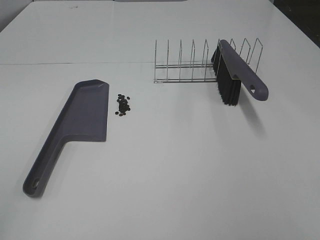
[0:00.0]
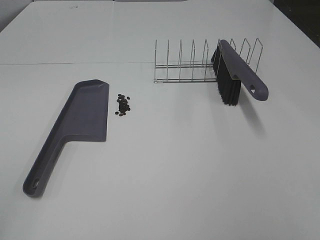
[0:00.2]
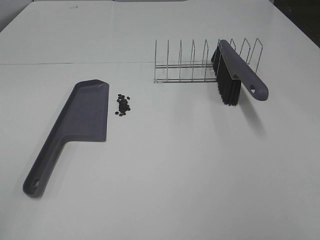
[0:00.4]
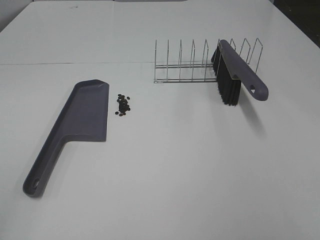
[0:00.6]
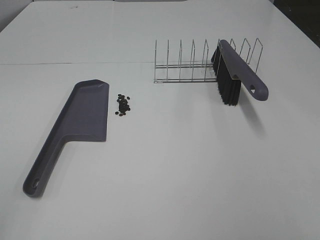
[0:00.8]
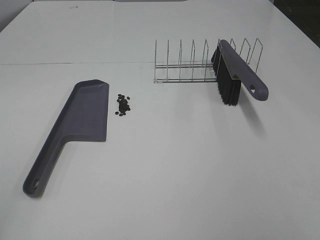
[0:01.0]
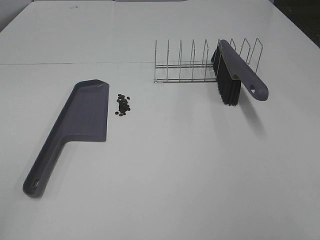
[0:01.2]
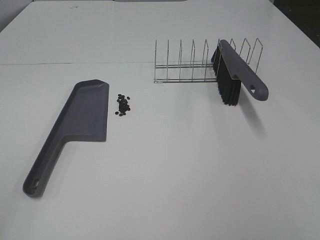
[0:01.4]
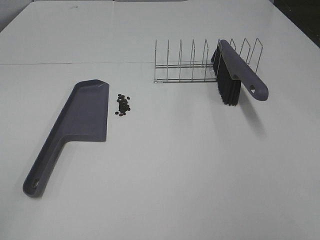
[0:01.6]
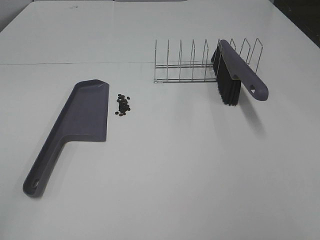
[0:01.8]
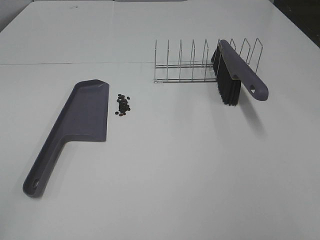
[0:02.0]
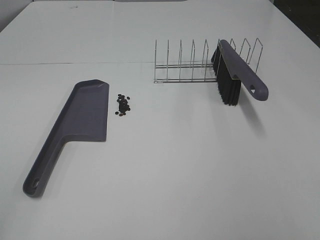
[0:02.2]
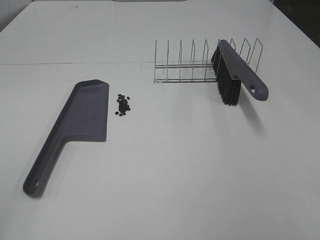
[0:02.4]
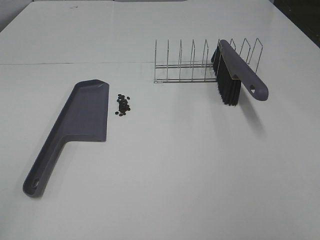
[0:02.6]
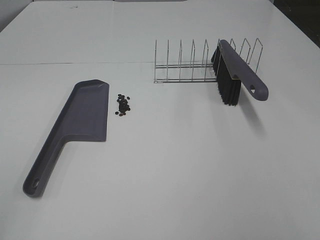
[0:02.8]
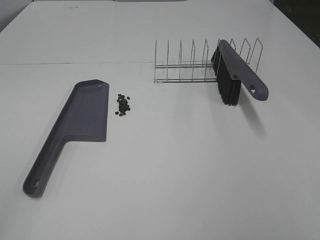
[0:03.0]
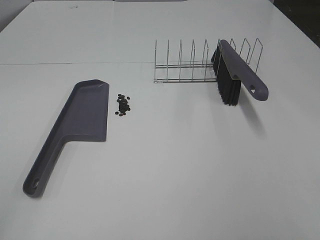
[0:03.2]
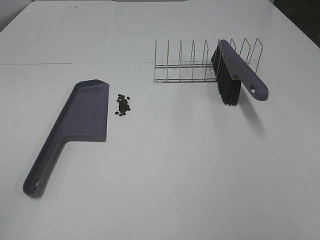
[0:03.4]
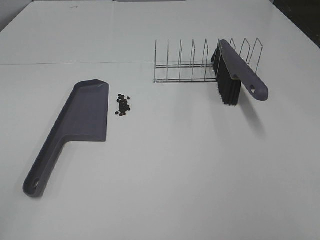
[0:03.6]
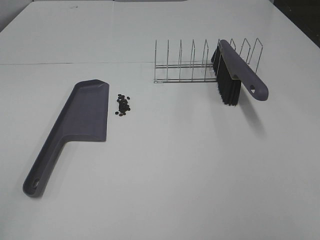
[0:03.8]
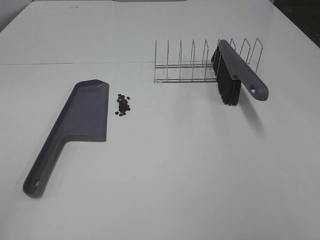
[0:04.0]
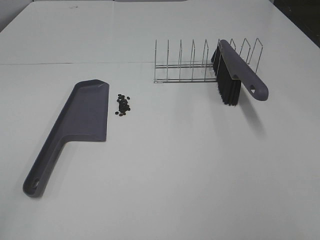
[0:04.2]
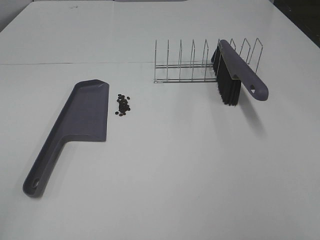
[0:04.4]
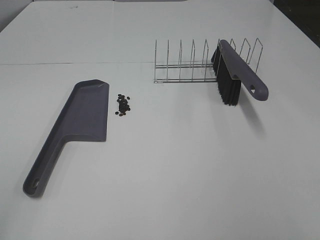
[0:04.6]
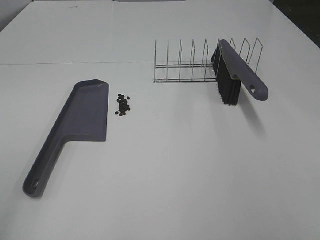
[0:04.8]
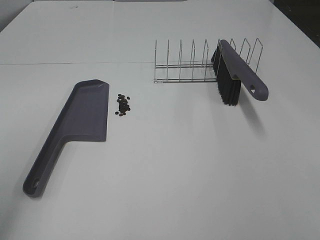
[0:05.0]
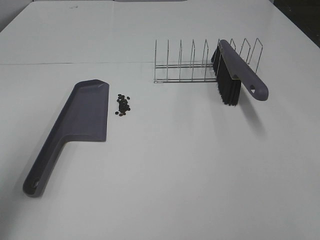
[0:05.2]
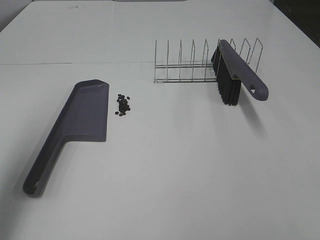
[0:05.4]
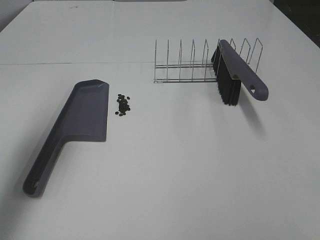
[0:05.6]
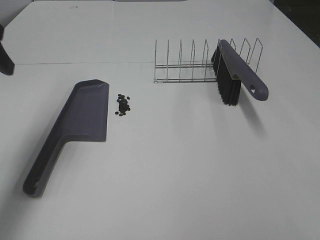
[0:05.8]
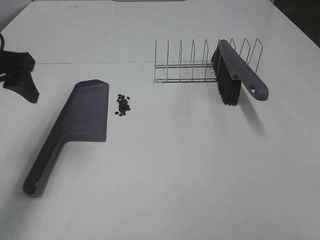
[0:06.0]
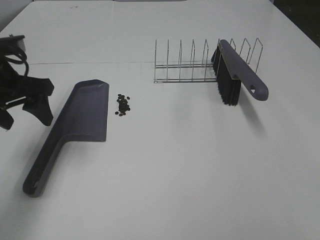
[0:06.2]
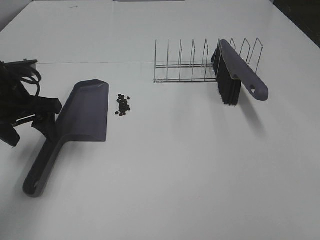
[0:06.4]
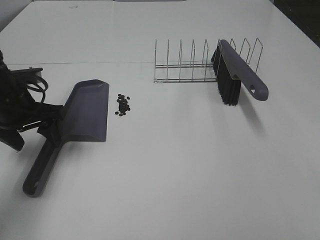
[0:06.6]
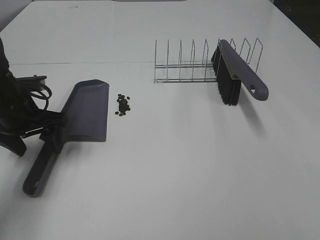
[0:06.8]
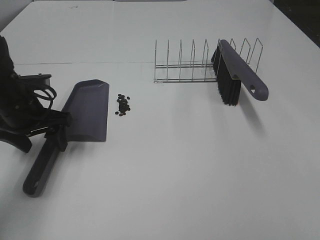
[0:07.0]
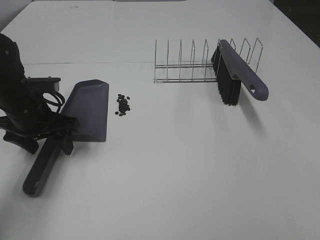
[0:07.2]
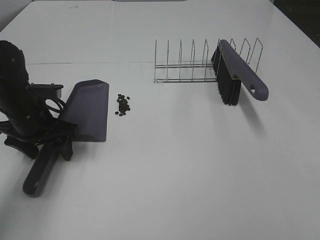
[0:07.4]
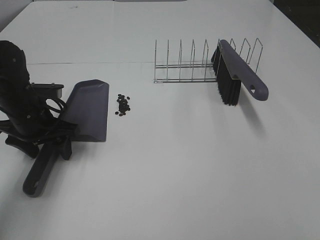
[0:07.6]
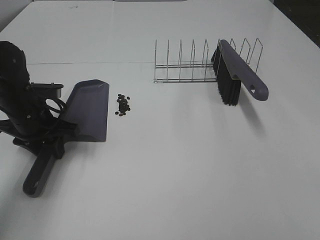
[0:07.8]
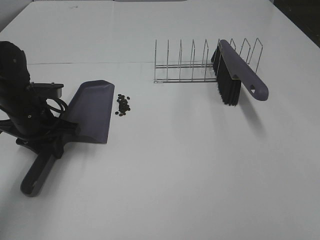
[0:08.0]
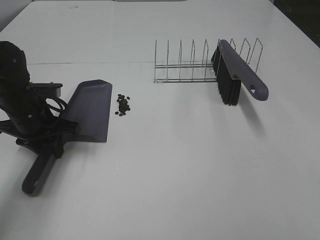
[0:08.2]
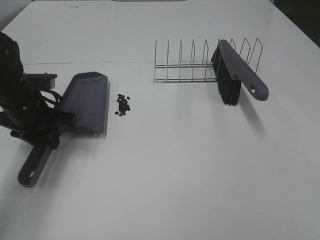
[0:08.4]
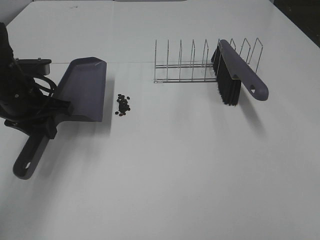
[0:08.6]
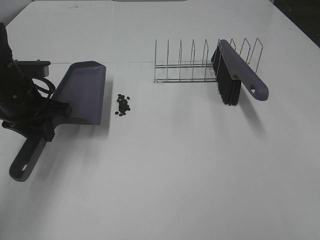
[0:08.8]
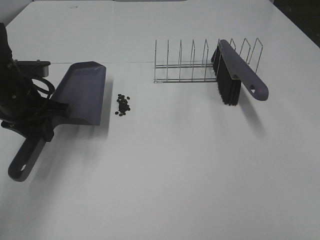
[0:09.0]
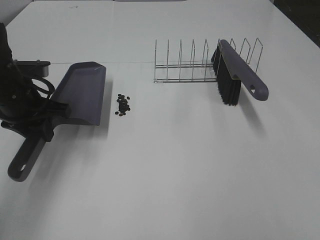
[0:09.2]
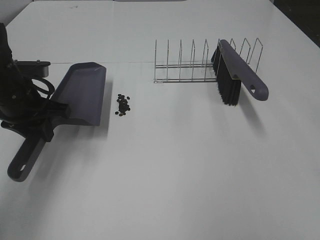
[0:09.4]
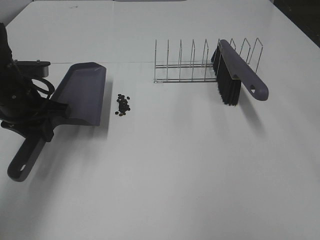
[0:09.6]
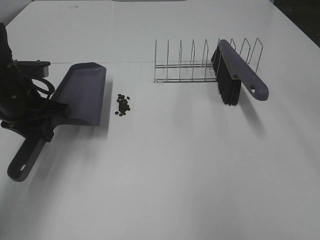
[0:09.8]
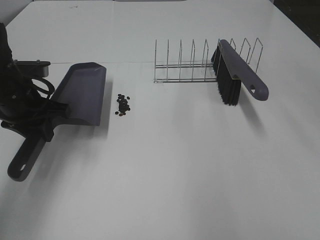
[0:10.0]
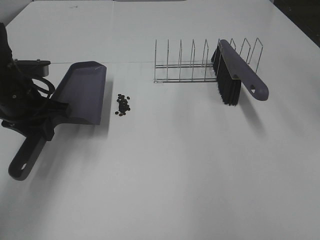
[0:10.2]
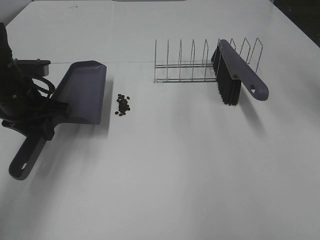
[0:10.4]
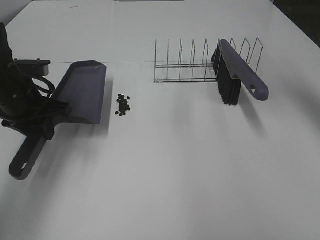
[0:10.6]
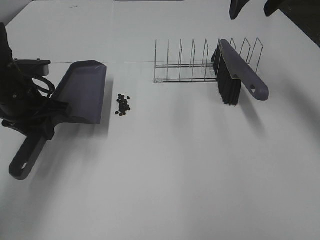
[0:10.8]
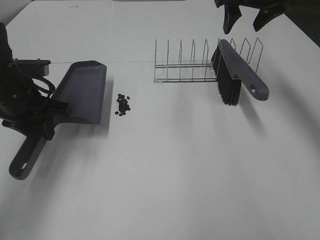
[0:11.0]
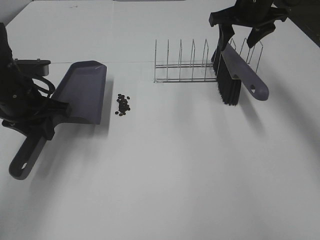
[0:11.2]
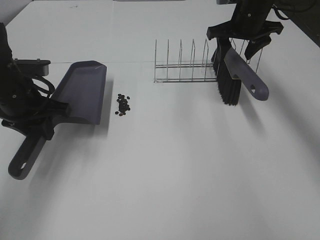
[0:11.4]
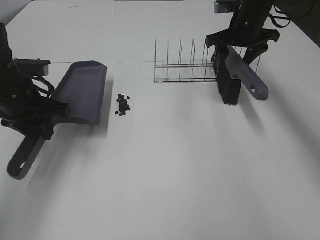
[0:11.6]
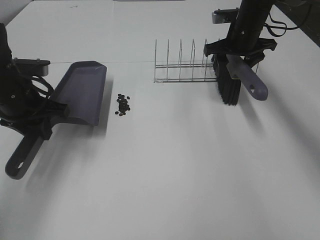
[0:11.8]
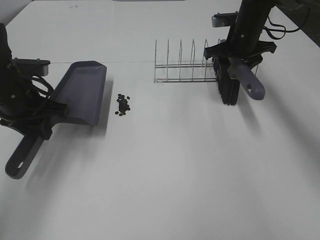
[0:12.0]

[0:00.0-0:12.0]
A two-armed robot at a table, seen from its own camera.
Task of the whole recording: Sweep Coffee Bean.
Step, 0:00.0 to 0:08.0: Left hand: grab the dustpan.
0:00.0 to 0:04.4: Both grippers stay put.
0:04.4 to 0:06.0: The left gripper goes some 30 cm forward.
0:06.0 to 0:07.6: The left gripper moves downward, approximately 15 cm.
0:07.6 to 0:09.0: The left gripper is displaced upward by about 5 cm, and closes.
0:10.4 to 0:12.0: The right gripper travels downward and forward by roughly 25 cm, and closes up.

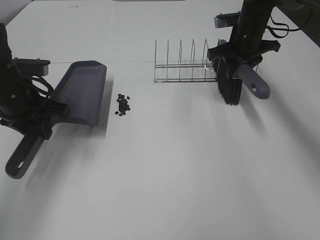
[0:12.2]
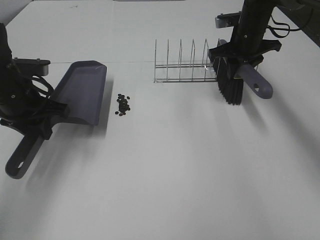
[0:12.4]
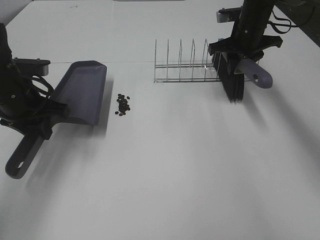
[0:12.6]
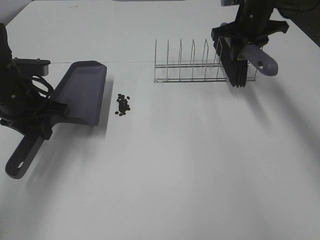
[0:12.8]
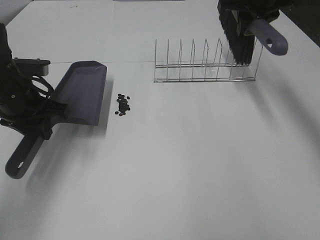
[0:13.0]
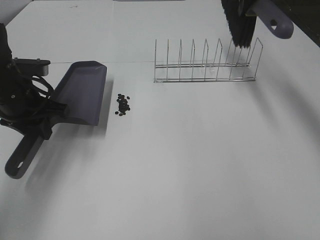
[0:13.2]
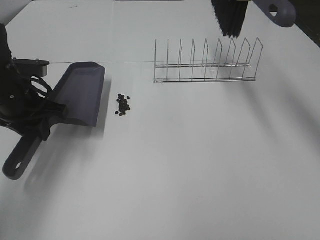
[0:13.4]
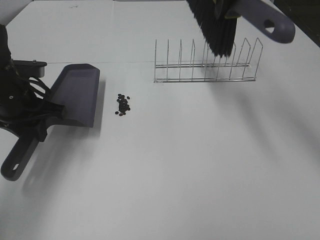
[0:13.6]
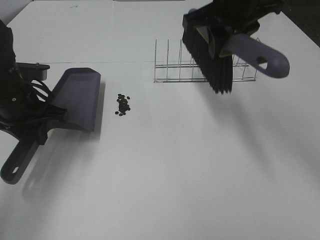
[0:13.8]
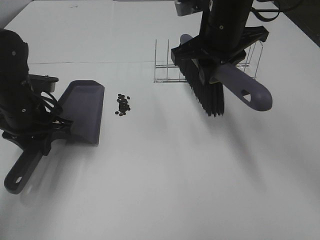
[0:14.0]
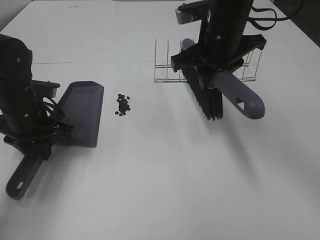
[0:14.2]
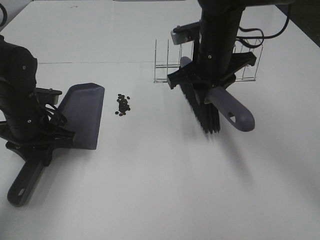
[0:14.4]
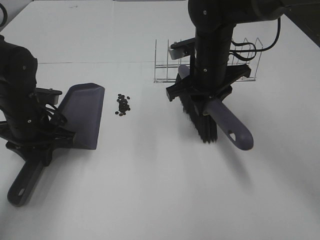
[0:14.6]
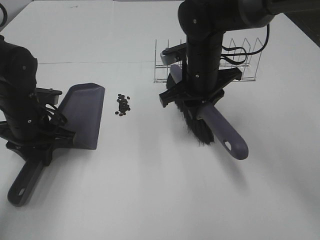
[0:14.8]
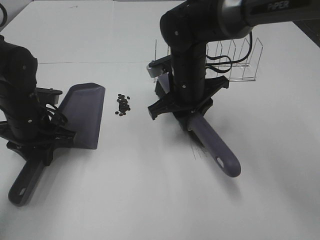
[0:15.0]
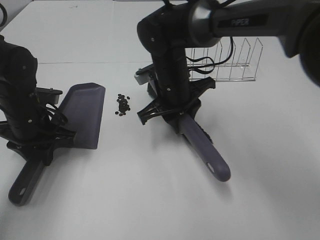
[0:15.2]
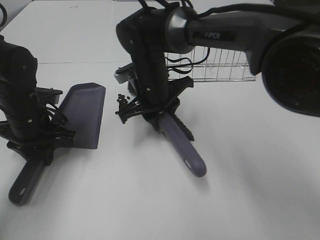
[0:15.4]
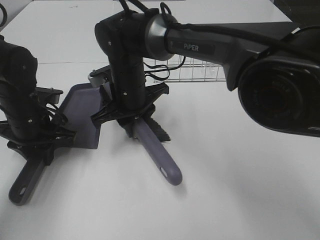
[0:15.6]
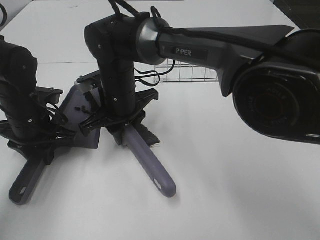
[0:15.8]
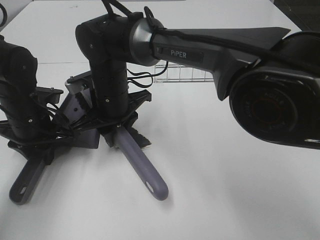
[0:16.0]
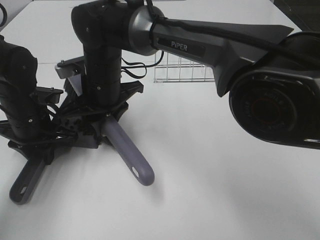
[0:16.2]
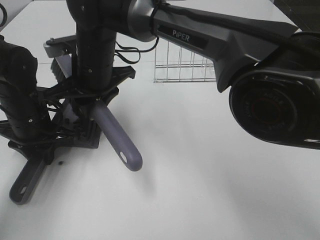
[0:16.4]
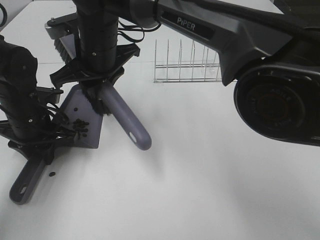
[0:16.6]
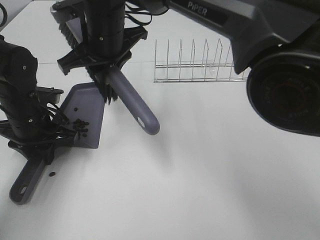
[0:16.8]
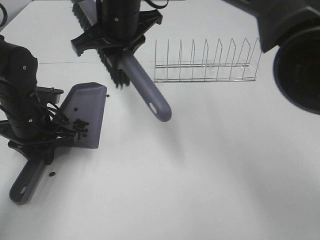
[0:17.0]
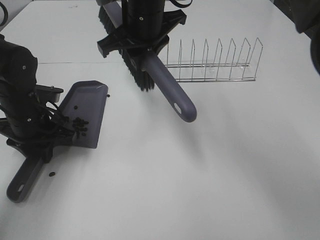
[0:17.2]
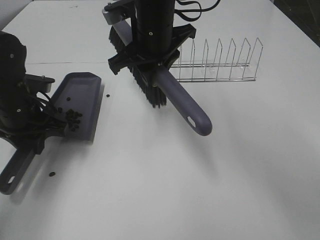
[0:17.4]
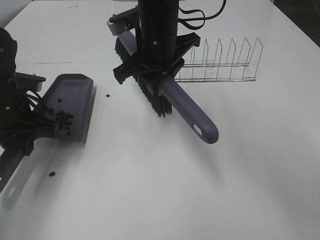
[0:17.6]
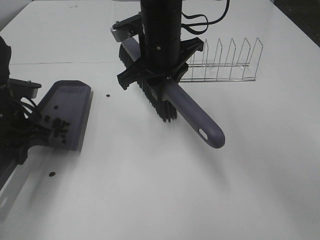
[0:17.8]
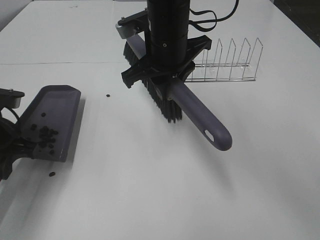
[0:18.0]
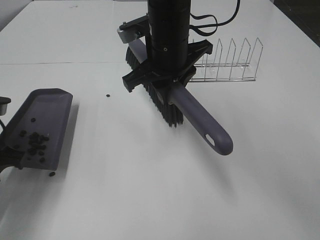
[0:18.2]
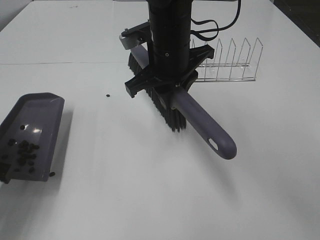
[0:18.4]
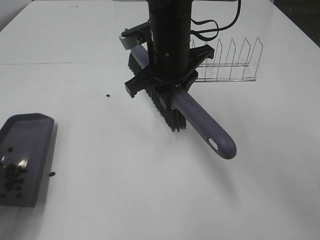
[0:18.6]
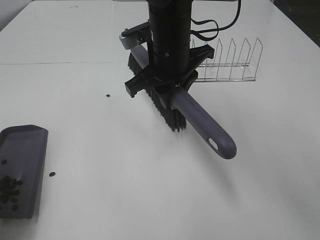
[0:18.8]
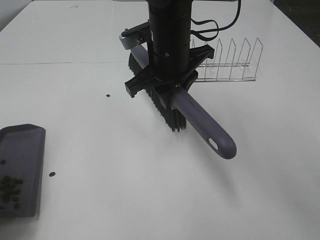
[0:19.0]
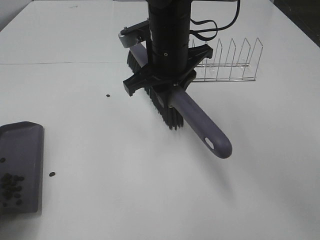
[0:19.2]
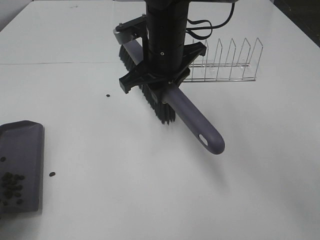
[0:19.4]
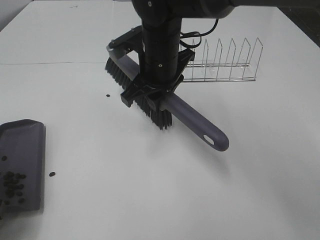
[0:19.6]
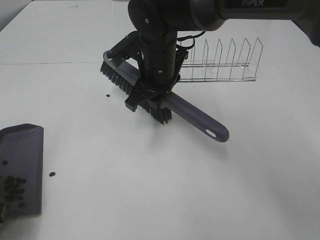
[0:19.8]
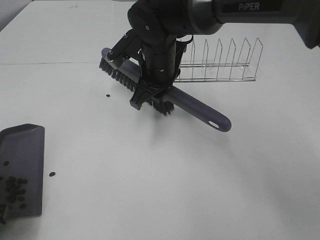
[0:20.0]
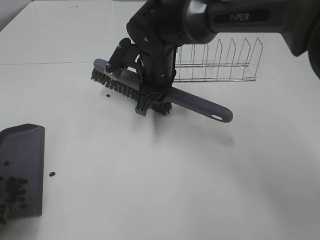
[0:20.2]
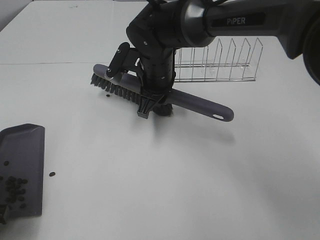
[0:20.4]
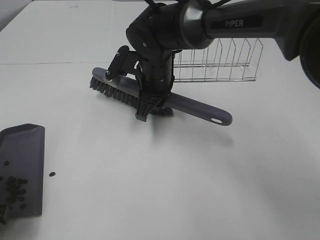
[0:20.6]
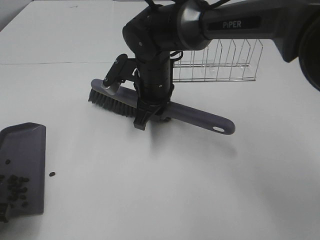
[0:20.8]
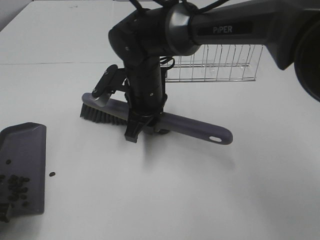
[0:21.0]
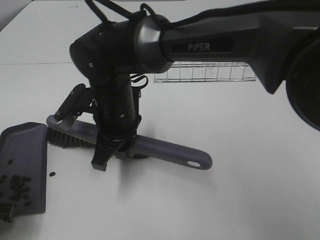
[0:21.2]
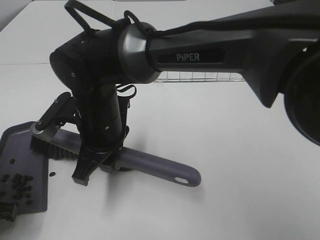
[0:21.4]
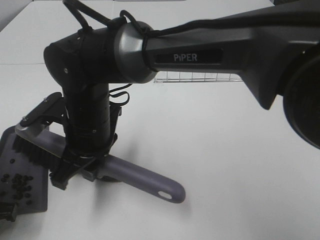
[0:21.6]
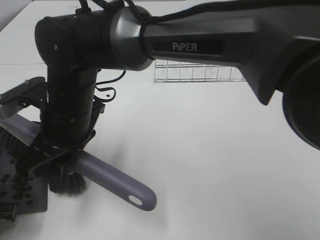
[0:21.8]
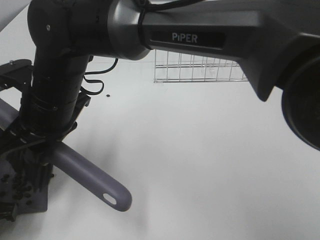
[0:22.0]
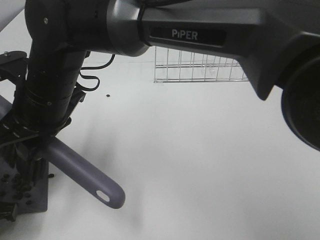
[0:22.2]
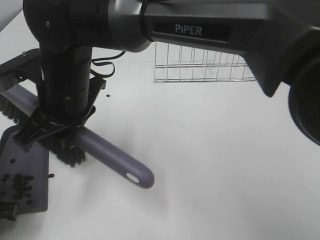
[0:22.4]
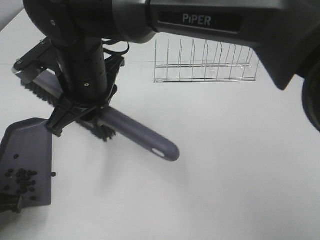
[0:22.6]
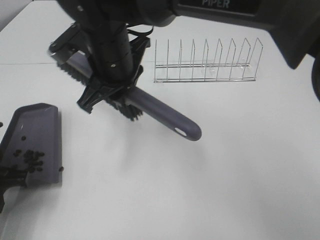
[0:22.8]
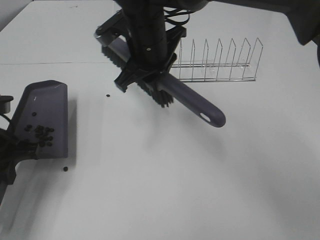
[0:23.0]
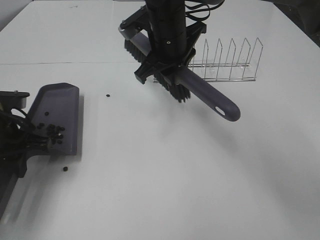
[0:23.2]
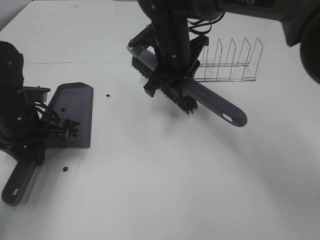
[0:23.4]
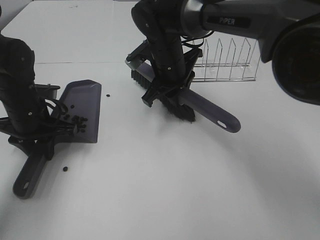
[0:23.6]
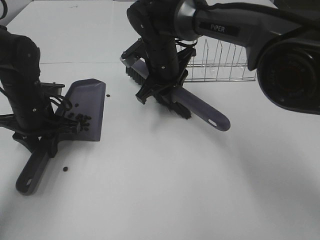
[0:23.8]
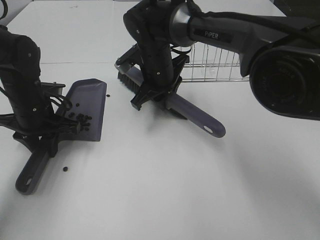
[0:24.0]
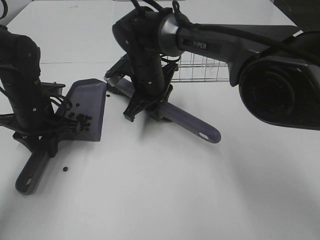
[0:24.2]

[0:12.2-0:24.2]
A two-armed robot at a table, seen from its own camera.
Task of the whole recording: Sweep Coffee Bean.
0:12.2 to 0:13.8: The right gripper shifts some 20 cm backward, upward and to the left.
0:13.8 to 0:15.2: The right gripper moves downward and to the left, roughly 20 cm.
0:15.2 to 0:16.6: The right gripper travels to the left and upward by roughly 15 cm.
0:16.6 to 0:18.2: The right gripper moves to the right, about 10 cm, while the left gripper goes about 10 cm backward and upward.
0:18.2 to 0:19.8: The left gripper goes roughly 5 cm backward. The right gripper ends up some 5 cm from where it was.
0:19.8 to 0:21.2: The right gripper goes roughly 10 cm backward and to the left.
0:21.2 to 0:22.6: The right gripper moves upward, approximately 5 cm.
0:22.6 to 0:24.2: The left gripper heads forward, covering approximately 15 cm. The right gripper travels forward, downward and to the right by approximately 15 cm.
